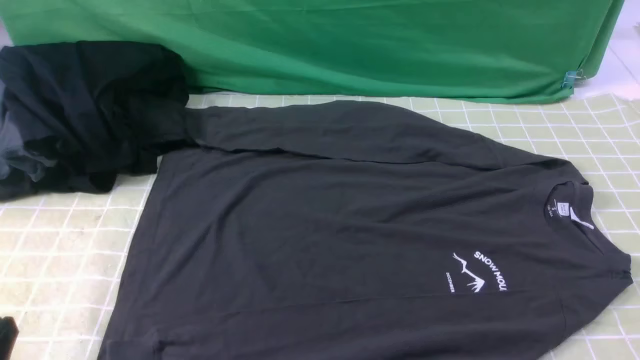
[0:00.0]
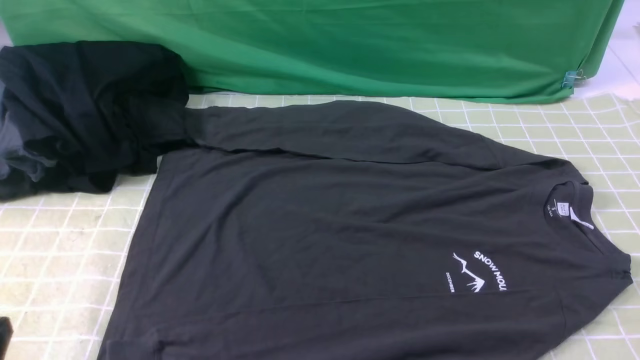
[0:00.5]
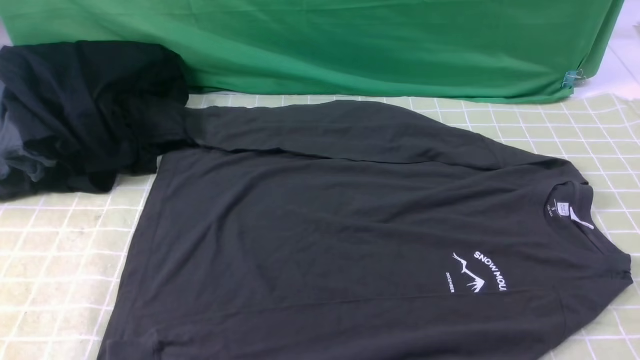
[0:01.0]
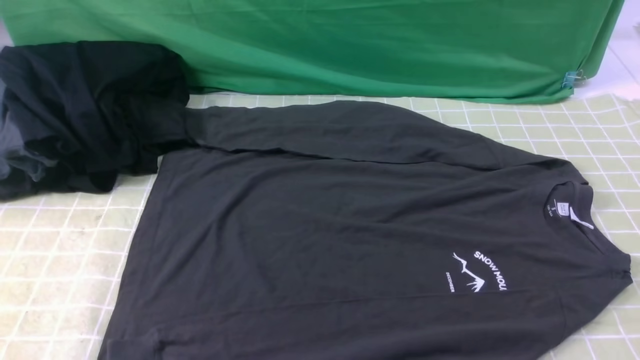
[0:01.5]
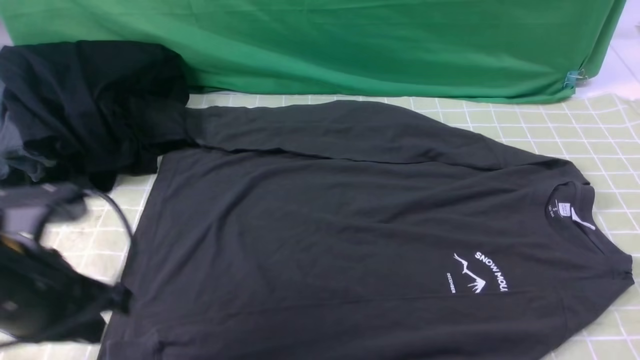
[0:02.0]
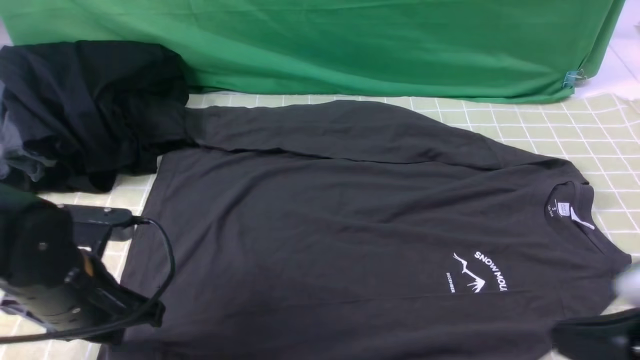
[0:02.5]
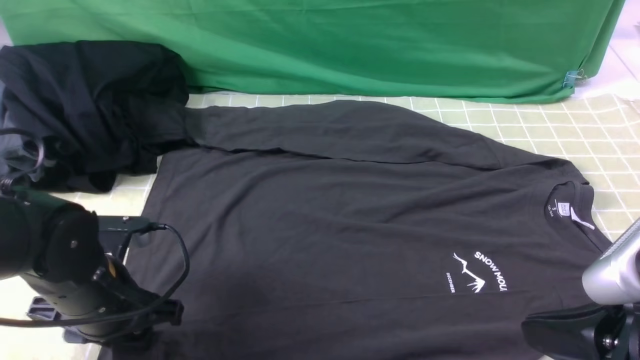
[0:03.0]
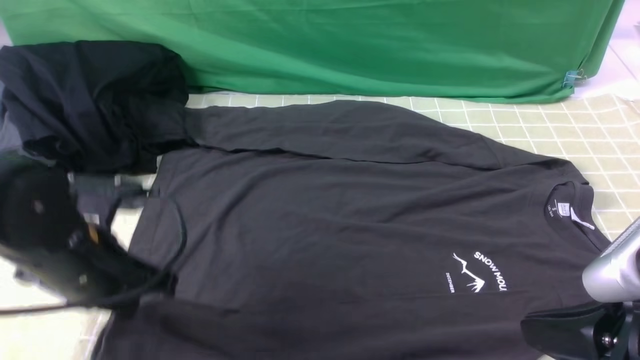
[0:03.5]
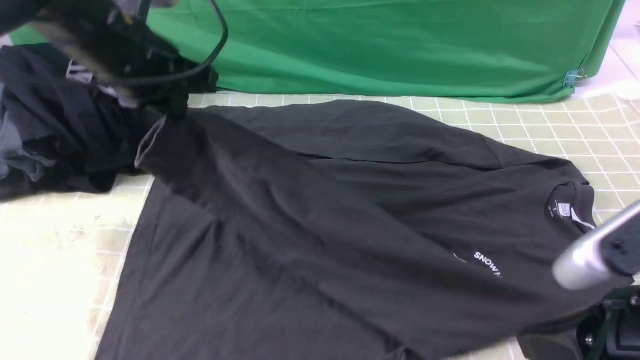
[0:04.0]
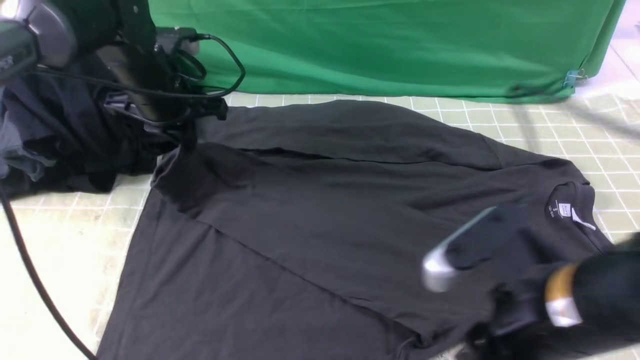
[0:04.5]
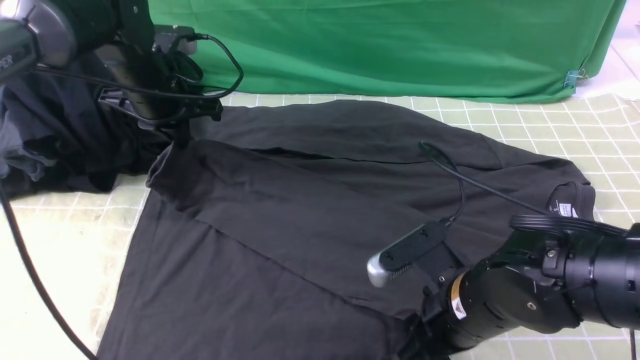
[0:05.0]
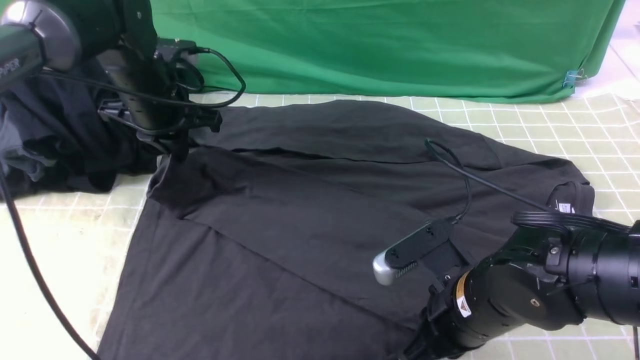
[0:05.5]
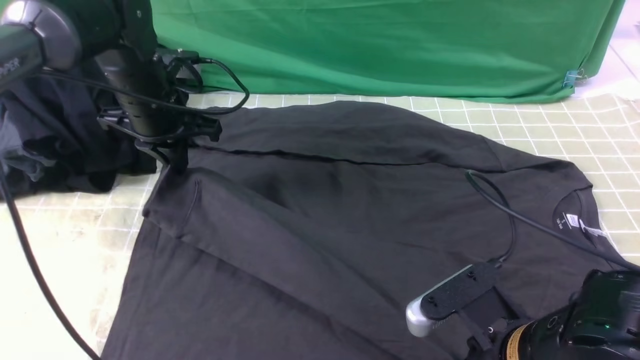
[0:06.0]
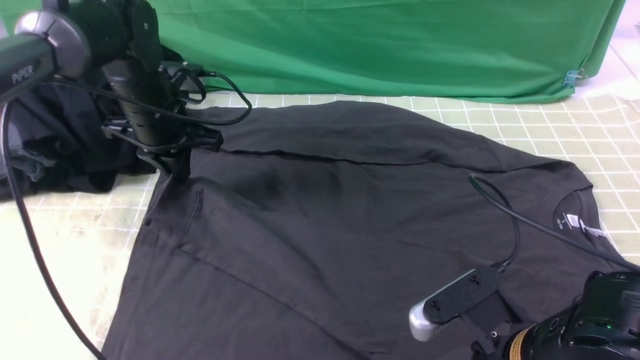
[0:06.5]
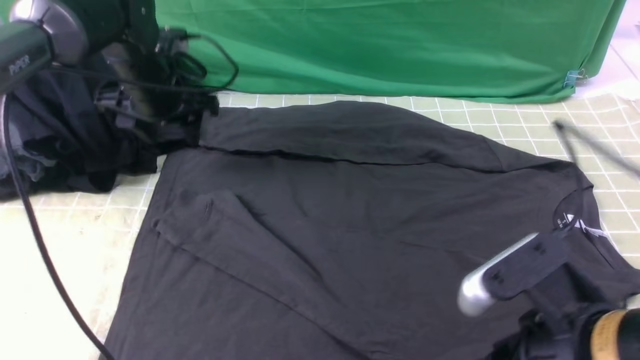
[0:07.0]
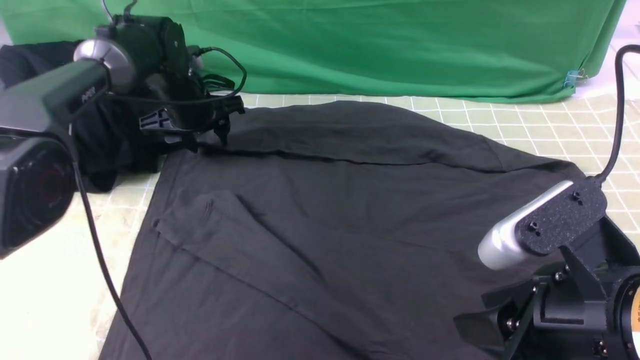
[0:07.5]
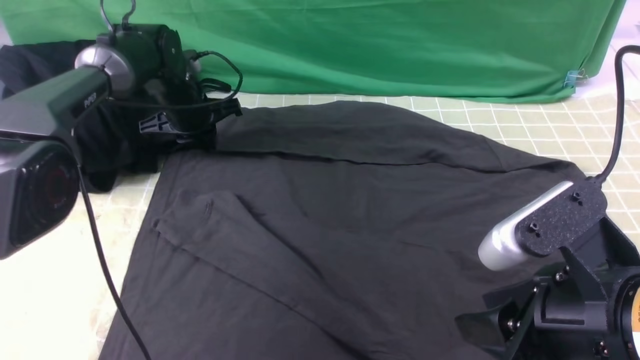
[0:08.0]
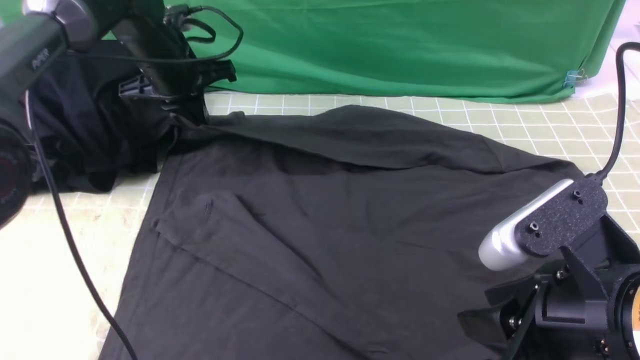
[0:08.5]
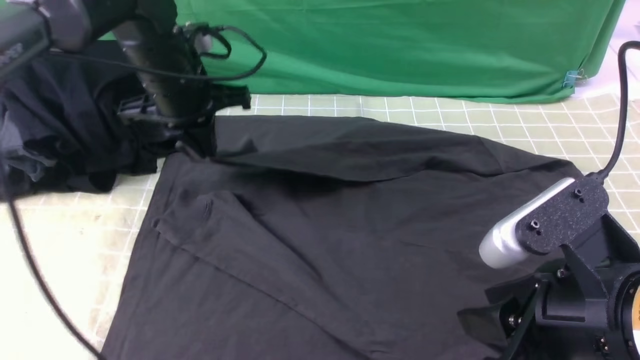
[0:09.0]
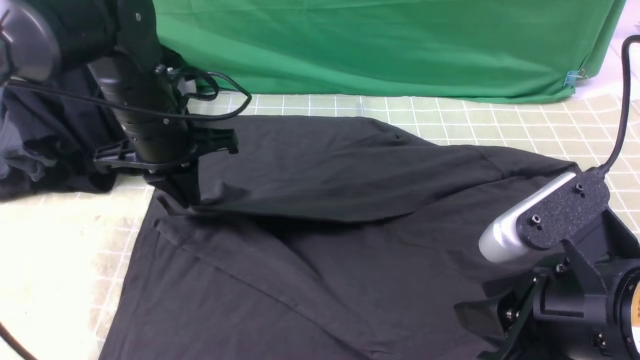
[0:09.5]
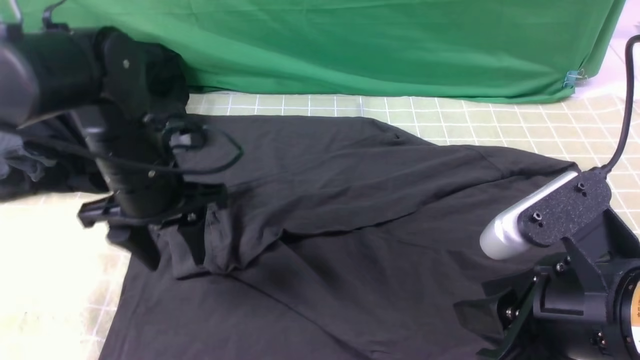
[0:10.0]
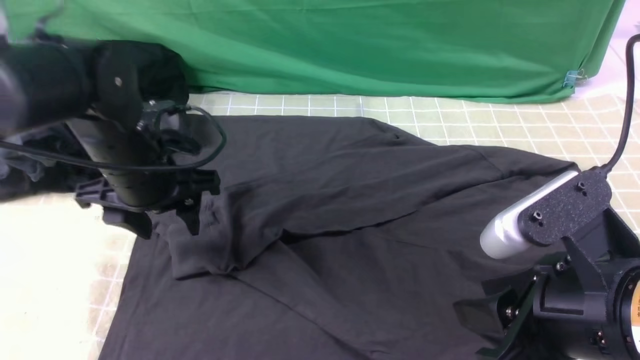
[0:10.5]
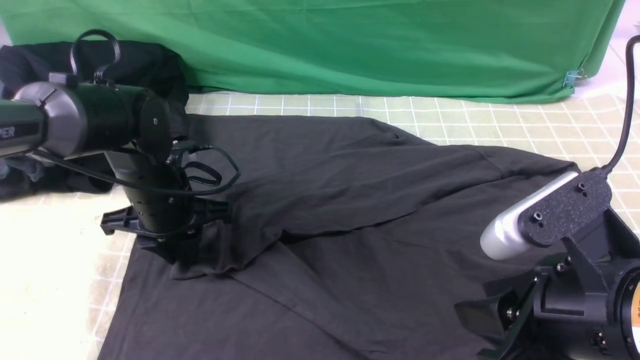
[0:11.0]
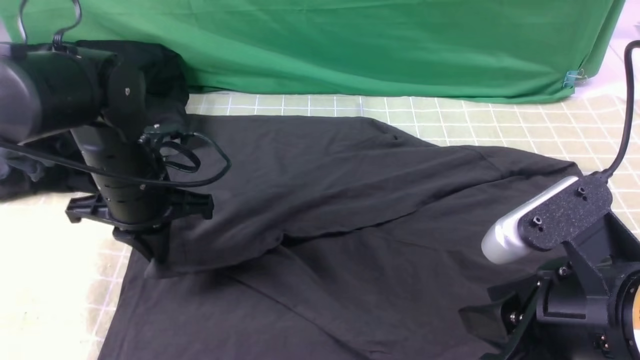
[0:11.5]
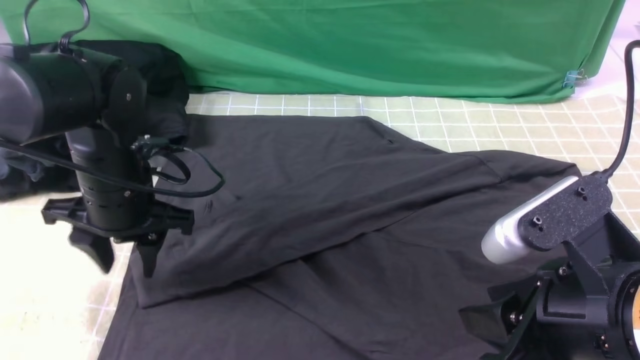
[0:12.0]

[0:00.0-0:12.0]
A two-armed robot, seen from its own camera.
Step, 0:00.0 to 0:03.0: use the left arm to clamp the cuff closest to it.
Step, 0:03.5 to 0:06.5: use the left arm to drag and place the cuff at the centered position on the left edge of the fabric.
Step, 0:07.0 to 0:08.0: use the left arm to clamp the cuff farthest from it.
Step, 0:08.5 to 0:12.0: use the left arm to drag and drop the cuff onto the cuff closest to the left arm.
0:00.0 to 0:02.0: The right gripper goes approximately 10 cm upward, and closes, while the left gripper shifts about 15 cm forward and upward.
0:02.0 to 0:04.0: The left gripper moves forward, some 20 cm, and opens, then closes again. Meanwhile the right gripper heads to the left and forward, covering some 10 cm.
0:04.0 to 0:06.0: The left gripper travels downward and forward by about 10 cm. The right gripper travels downward and to the left by about 15 cm, and opens, then closes again.
0:06.0 to 0:08.0: The right gripper travels upward by about 10 cm, and opens; the left gripper heads forward, covering roughly 10 cm, and opens, then closes once more.
0:08.0 to 0:10.0: The left gripper travels backward by some 20 cm, and opens up.
0:10.0 to 0:12.0: The left gripper closes, then opens again.

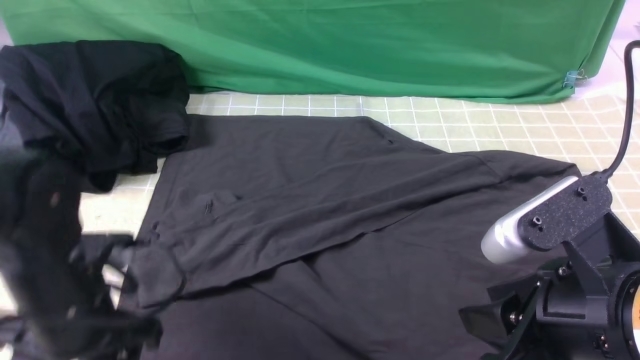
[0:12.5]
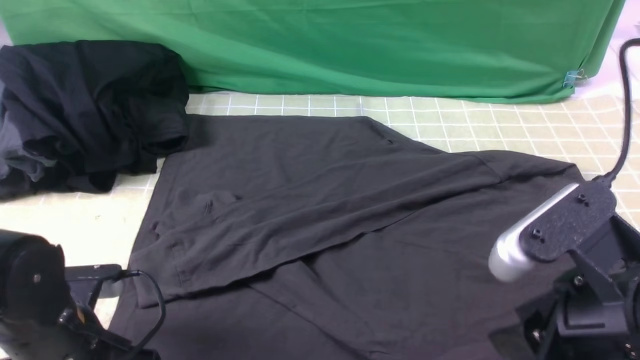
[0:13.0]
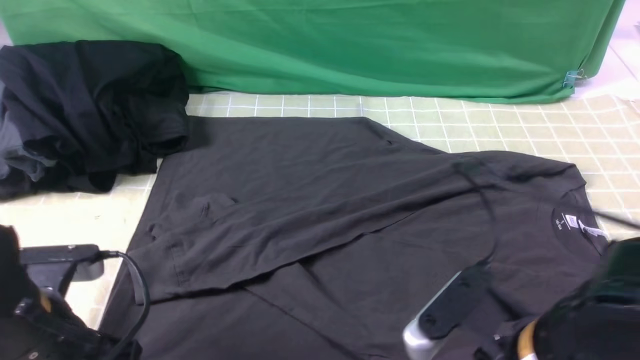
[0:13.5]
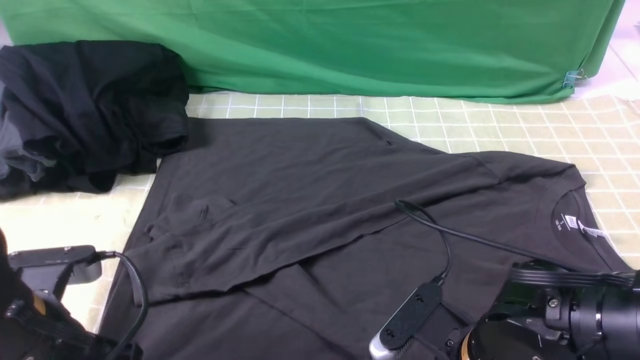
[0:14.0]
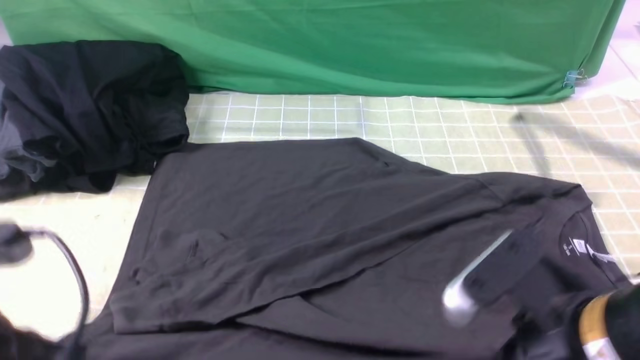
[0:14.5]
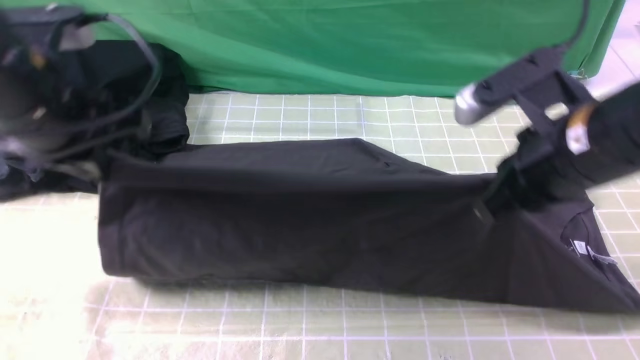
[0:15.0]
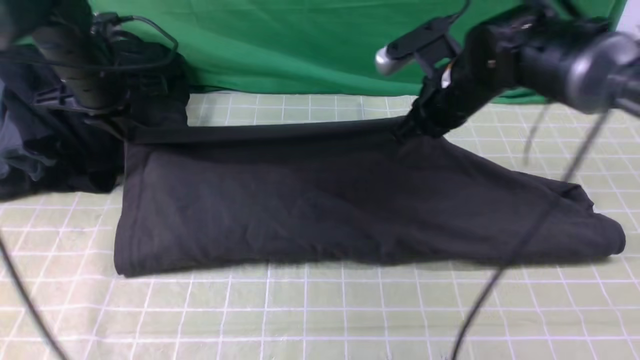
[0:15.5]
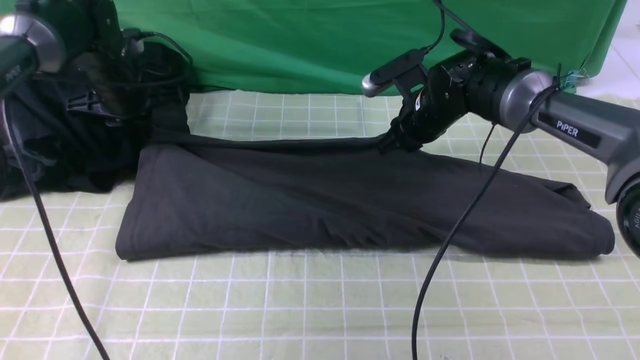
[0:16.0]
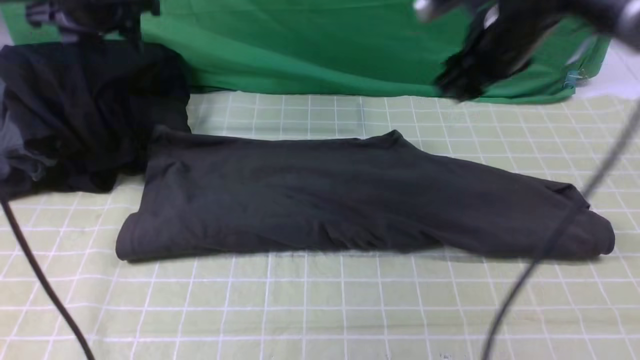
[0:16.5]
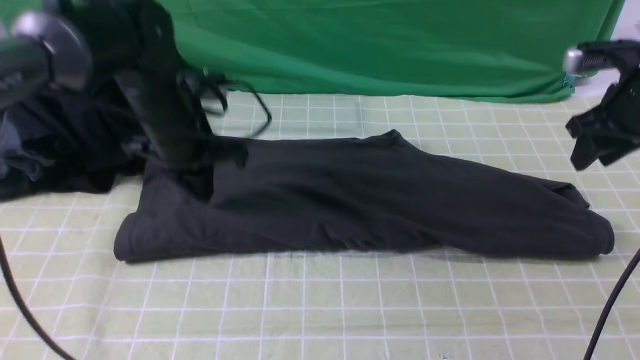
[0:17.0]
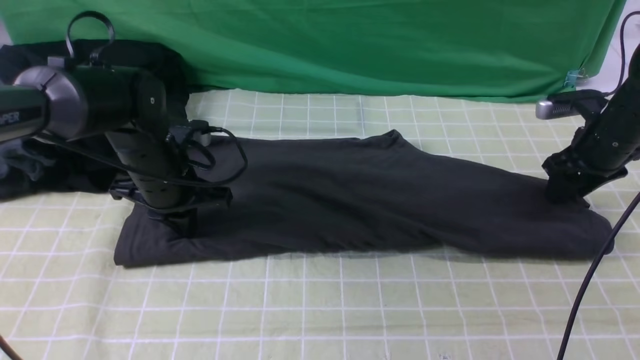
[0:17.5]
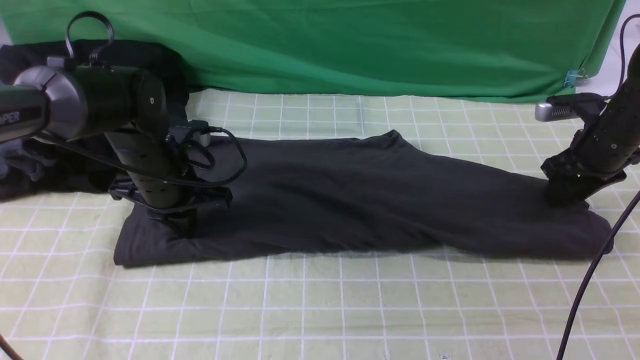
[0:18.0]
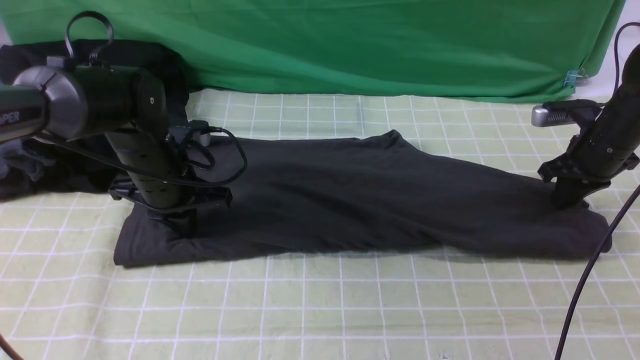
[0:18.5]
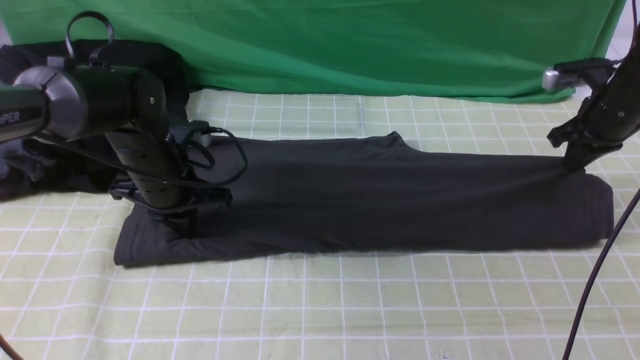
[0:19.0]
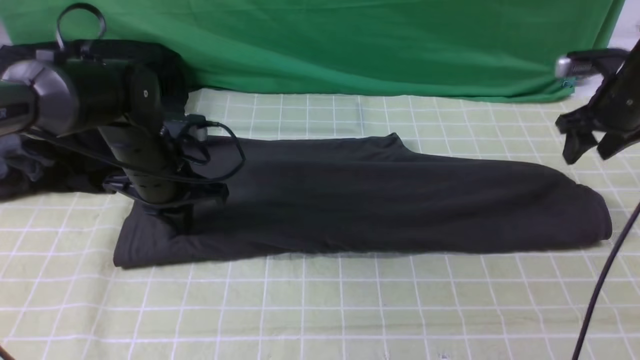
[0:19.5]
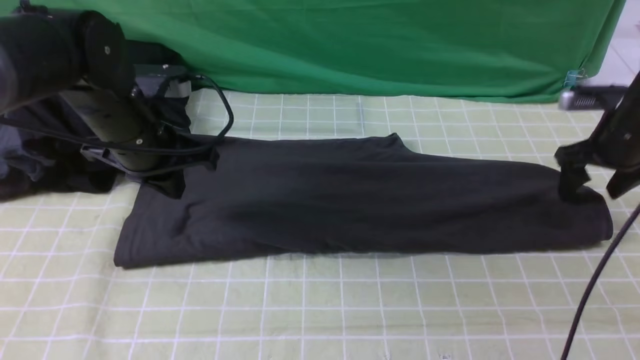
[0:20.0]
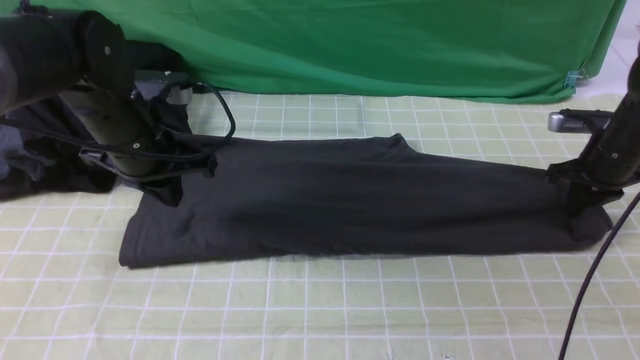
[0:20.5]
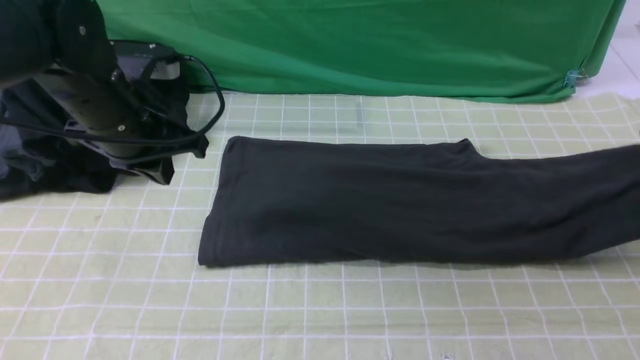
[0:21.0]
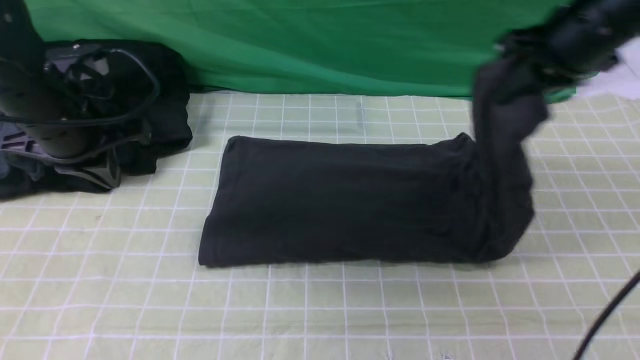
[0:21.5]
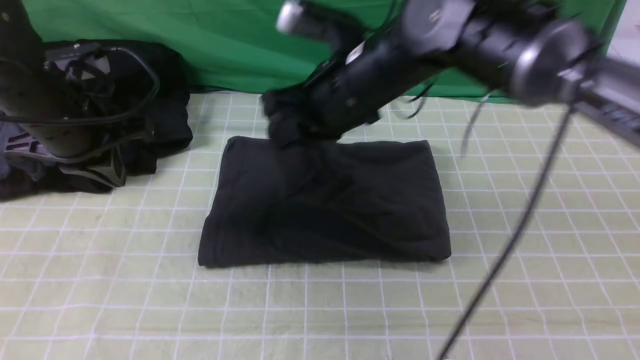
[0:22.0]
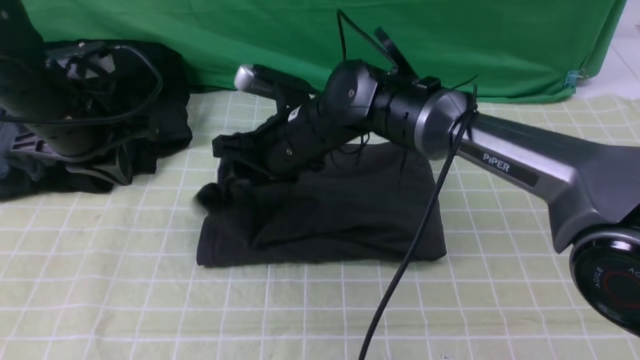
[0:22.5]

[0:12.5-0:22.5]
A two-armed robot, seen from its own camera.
Step, 0:12.5 to 0:13.5: use both arms simultaneously to clamp the lower edge of the clothing fabric.
Step, 0:14.0 to 0:16.0: use both arms to drag the lower edge of the fabric forward and fold it over the upper edge.
Step, 0:16.5 to 0:20.5: use the right arm to clamp the right edge of the fabric.
0:12.5 to 0:14.5: The right gripper travels downward and back again, roughly 10 cm each way, and closes, while the left gripper heads upward and backward, covering some 15 cm, and closes.
0:14.5 to 0:16.5: Both grippers move forward, approximately 30 cm. The left gripper opens; the right gripper opens its fingers.
0:16.5 to 0:18.5: The left gripper moves downward, backward and to the right, some 20 cm, and closes its fingers. Meanwhile the right gripper shifts approximately 20 cm to the right and downward, and closes up.
0:18.5 to 0:20.5: The left gripper heads upward, covering approximately 10 cm, while the right gripper opens and closes again.
0:20.5 to 0:22.5: The right gripper shifts about 40 cm to the left, and opens. Meanwhile the left gripper travels to the left by roughly 5 cm.
